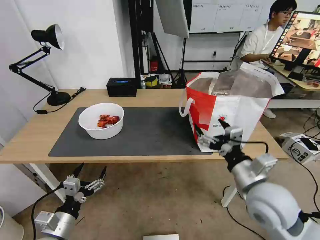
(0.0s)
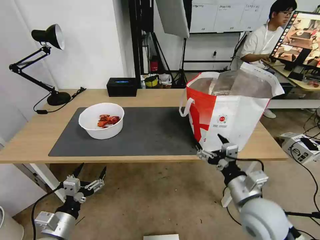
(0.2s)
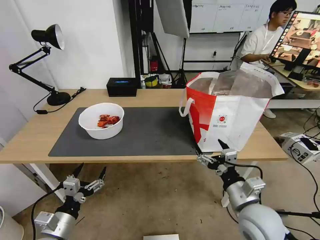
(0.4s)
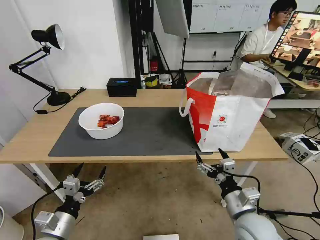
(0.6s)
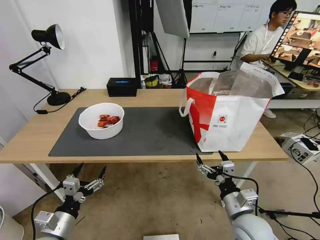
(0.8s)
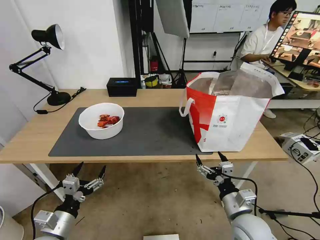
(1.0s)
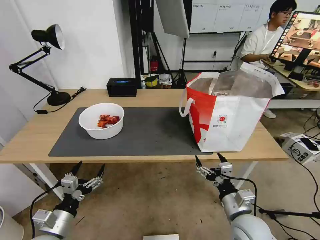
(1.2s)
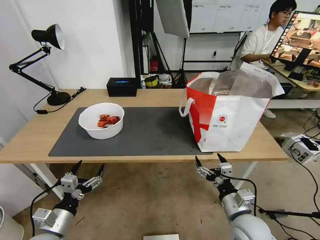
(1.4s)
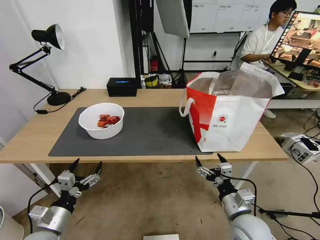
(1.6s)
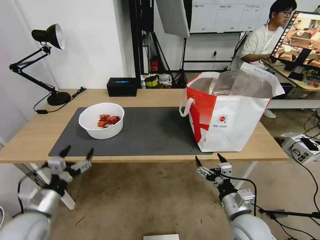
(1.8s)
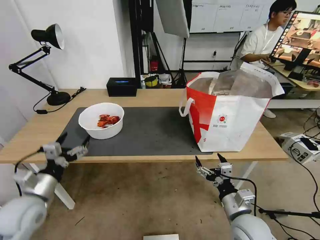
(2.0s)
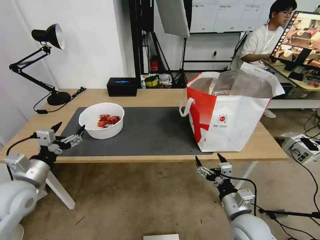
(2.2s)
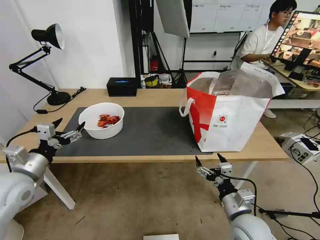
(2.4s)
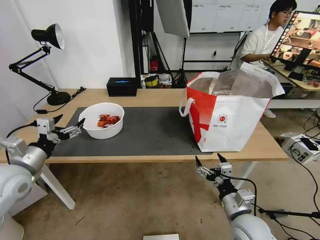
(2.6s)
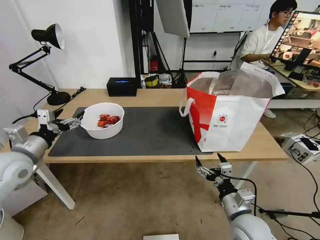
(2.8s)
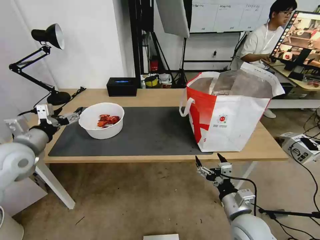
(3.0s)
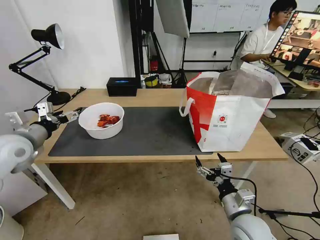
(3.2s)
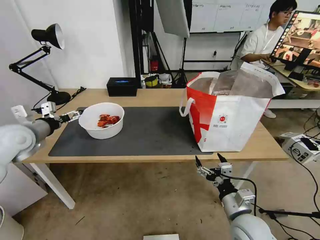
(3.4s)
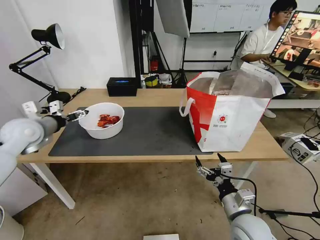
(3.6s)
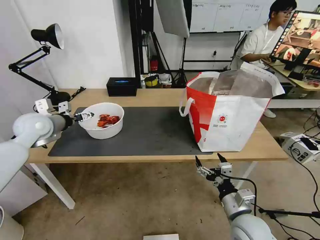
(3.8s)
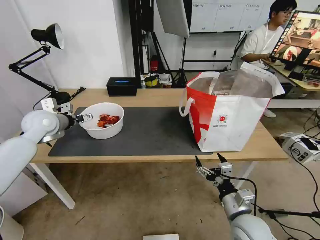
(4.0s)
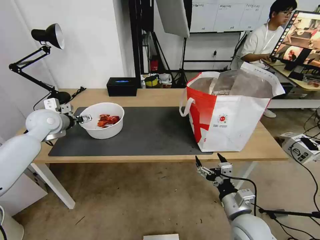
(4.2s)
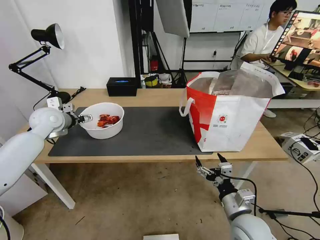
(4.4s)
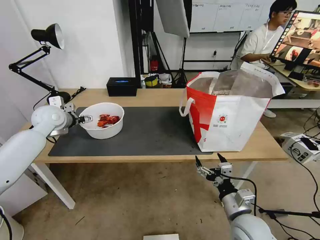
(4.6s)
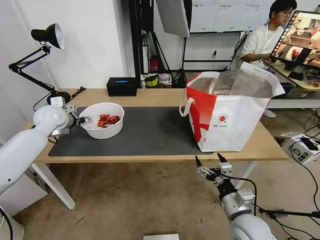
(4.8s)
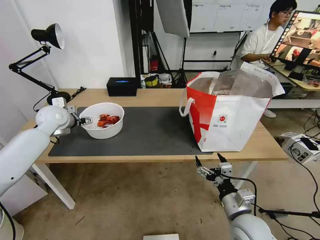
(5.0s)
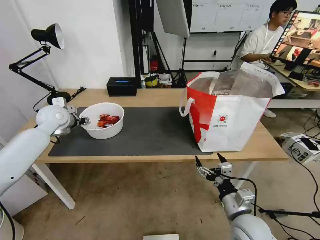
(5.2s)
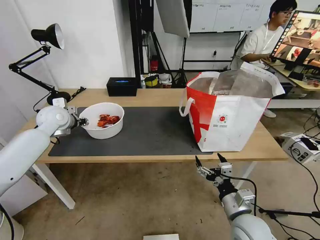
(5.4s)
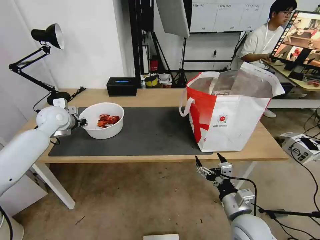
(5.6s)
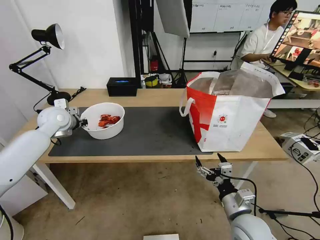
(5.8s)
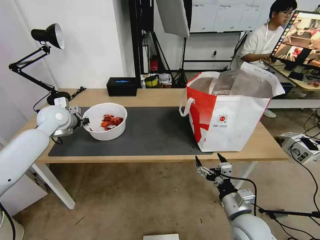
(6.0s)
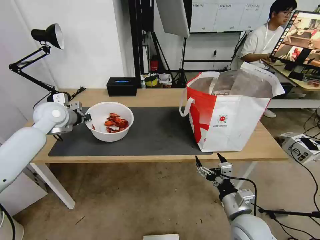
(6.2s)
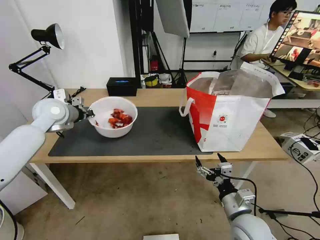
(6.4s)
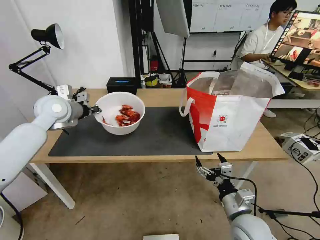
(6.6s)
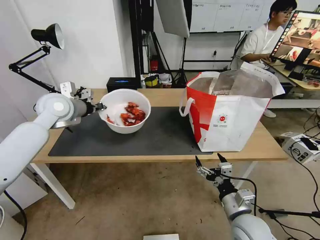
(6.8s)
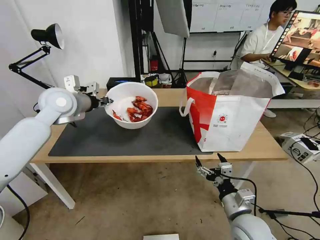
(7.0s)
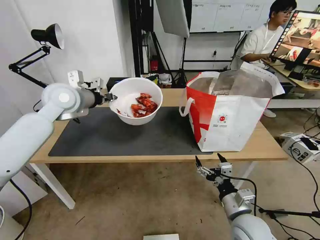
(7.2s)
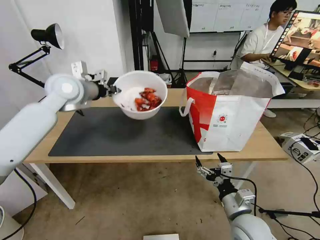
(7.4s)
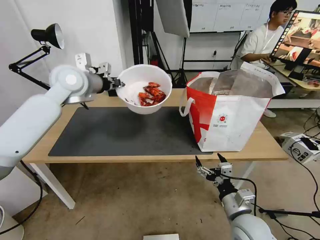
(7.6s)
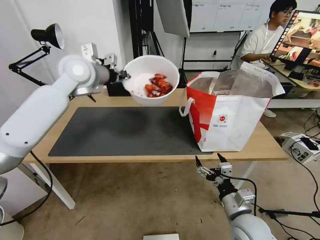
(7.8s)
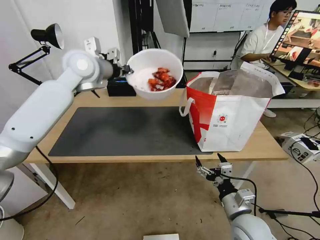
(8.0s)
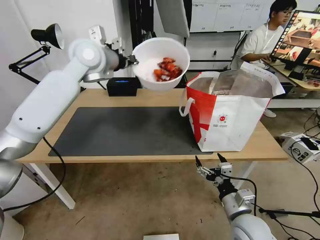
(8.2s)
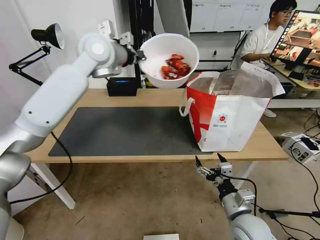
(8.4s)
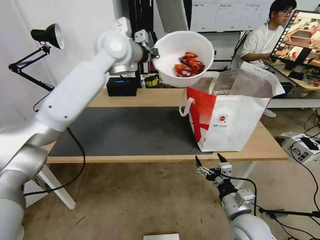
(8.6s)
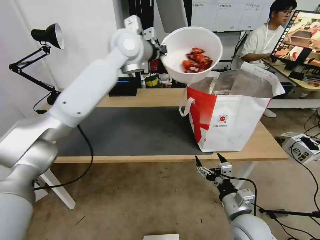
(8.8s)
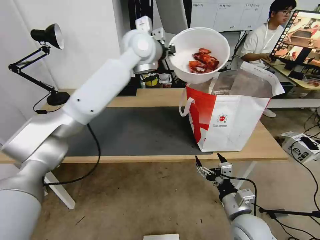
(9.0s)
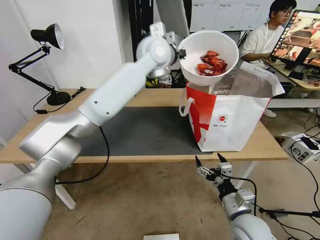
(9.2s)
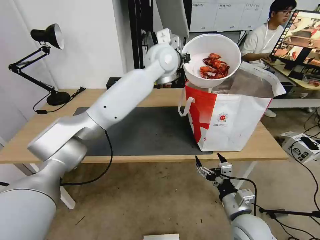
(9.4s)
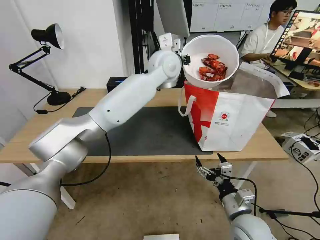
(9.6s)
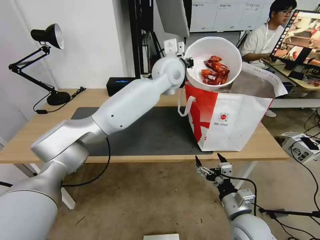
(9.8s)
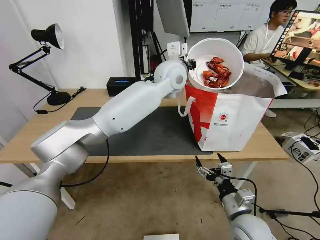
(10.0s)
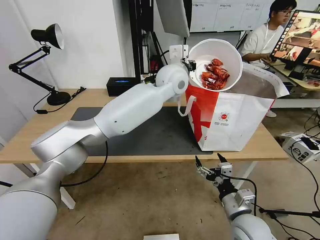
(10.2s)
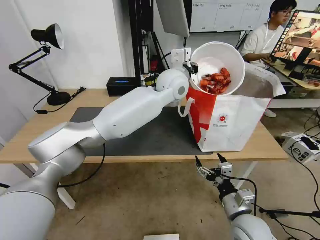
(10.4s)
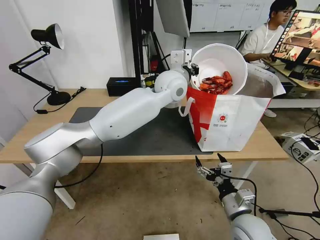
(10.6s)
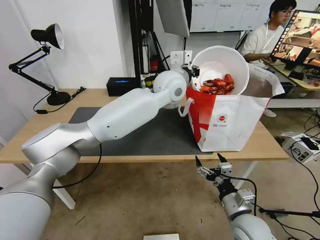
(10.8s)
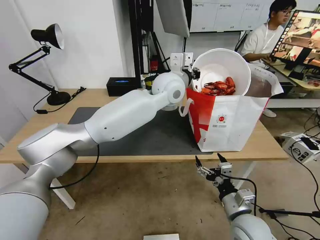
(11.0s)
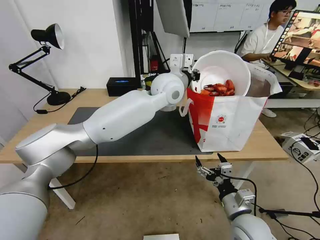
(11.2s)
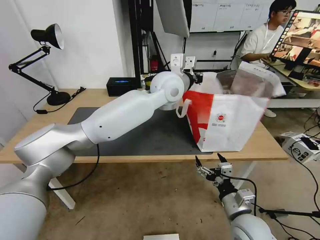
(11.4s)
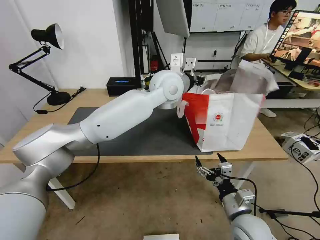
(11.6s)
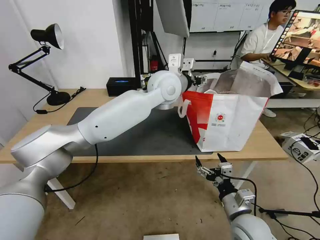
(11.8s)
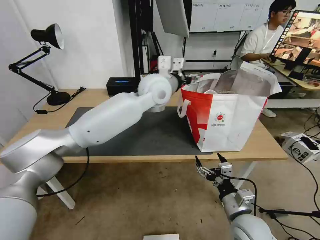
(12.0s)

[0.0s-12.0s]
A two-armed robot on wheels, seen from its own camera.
Task of the whole recording: Pick up the trash from the table and place it into the takeout bag.
0.0s to 1.6s: The right gripper shifts some 10 cm downward.
1.6s to 3.0s: The left gripper travels forward, upward and to the left by about 25 cm.
3.0s to 4.4s: The left gripper goes approximately 15 cm forward.
4.4s to 6.0s: The left gripper closes its fingers.
6.0s to 7.6s: The left gripper travels upward and to the right by roughly 20 cm.
7.6s to 9.0s: The left gripper is displaced to the right by some 20 cm.
9.0s to 10.4s: The left gripper is displaced downward and to the right by some 15 cm.
10.4s to 12.0s: The left gripper shifts roughly 5 cm to the left, and opens its fingers.

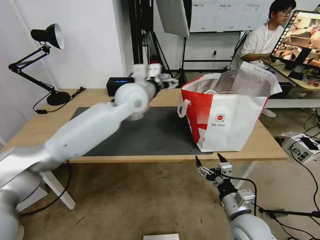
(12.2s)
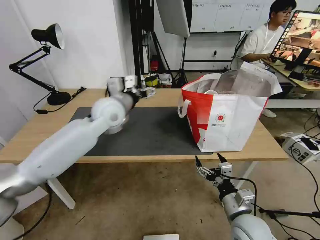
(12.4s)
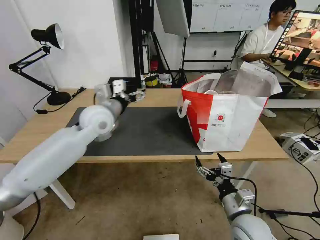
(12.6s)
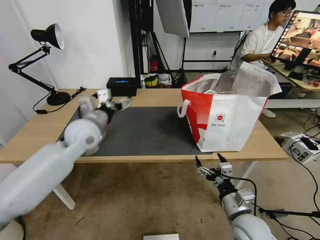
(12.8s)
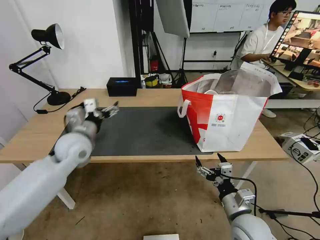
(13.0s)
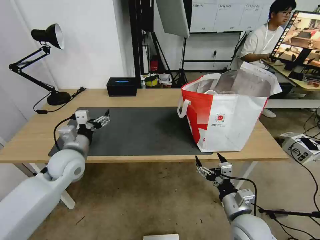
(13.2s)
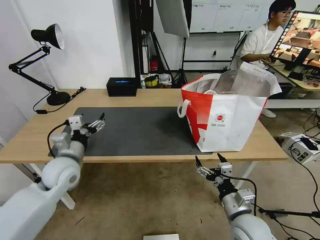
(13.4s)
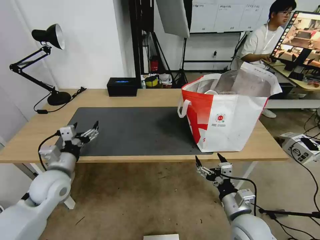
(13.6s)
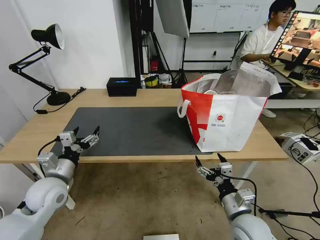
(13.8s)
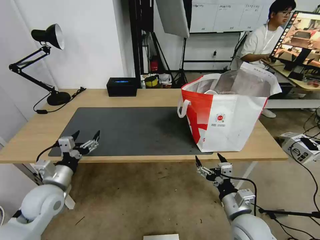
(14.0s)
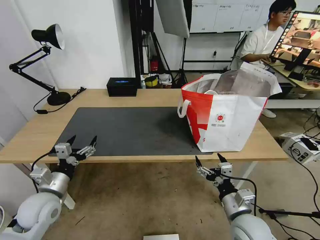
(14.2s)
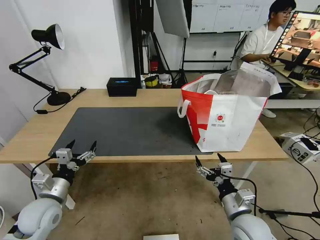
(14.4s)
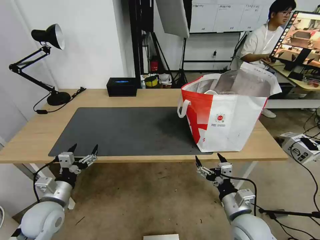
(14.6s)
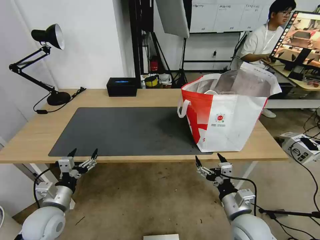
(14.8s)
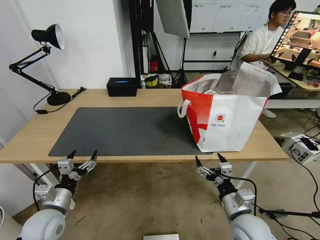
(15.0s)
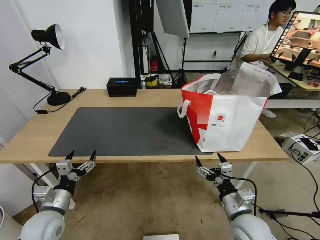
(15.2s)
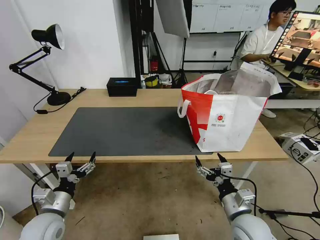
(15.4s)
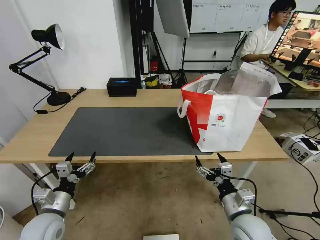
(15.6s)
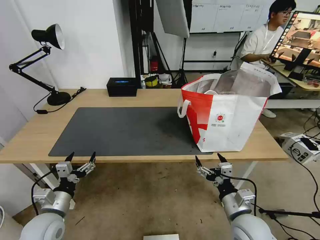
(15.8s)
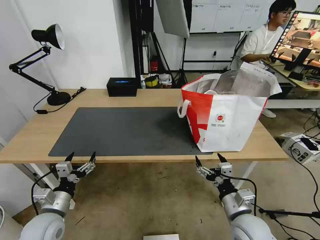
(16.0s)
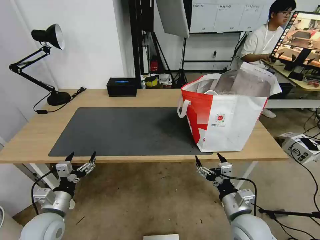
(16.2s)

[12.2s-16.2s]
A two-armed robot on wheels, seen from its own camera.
Task of the whole recording: Pick up the trash from the table and place it into the takeout bag.
12.2s to 13.6s: The left gripper moves to the left, backward and downward, roughly 35 cm.
13.6s to 14.8s: The left gripper travels downward and backward by some 10 cm.
14.8s to 16.2s: The grippers make only small movements.

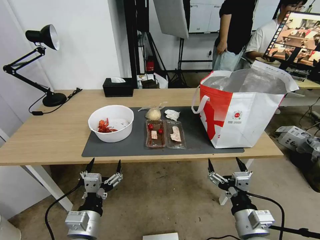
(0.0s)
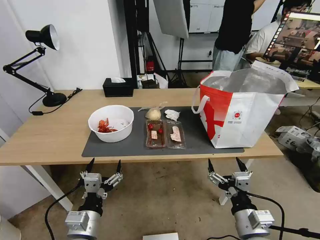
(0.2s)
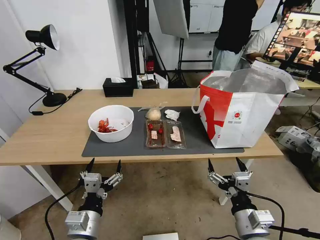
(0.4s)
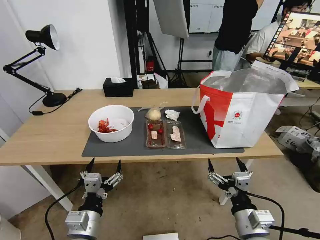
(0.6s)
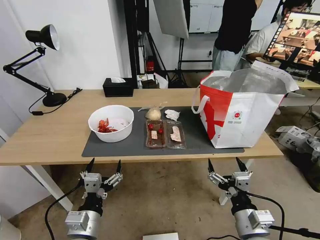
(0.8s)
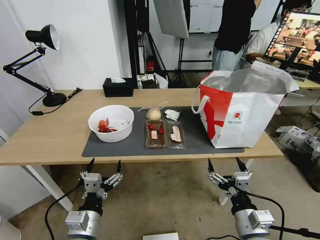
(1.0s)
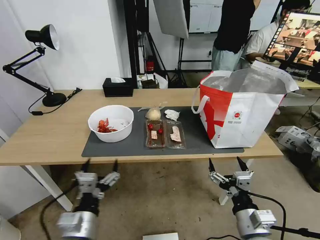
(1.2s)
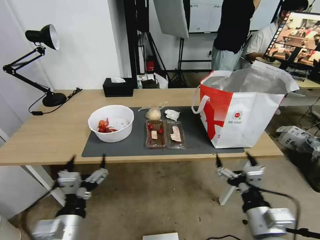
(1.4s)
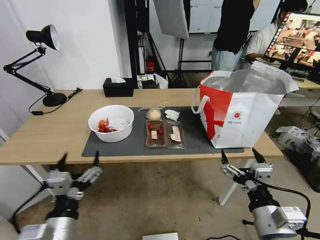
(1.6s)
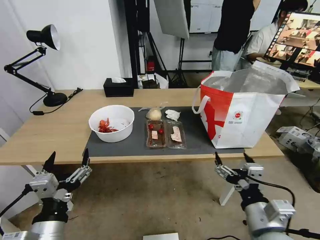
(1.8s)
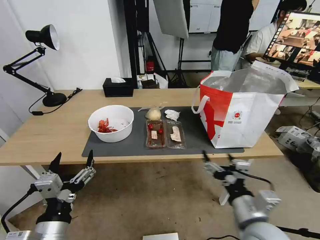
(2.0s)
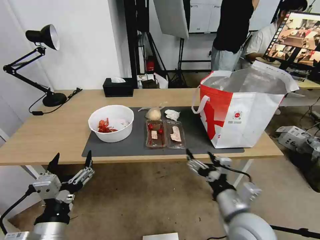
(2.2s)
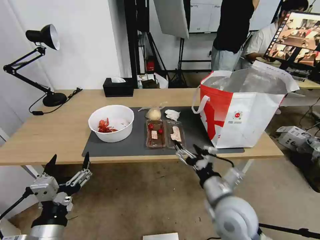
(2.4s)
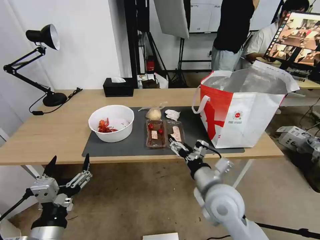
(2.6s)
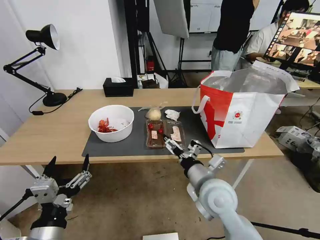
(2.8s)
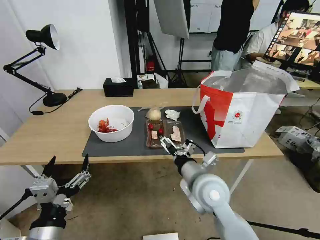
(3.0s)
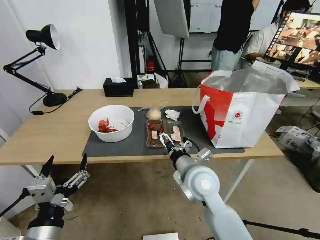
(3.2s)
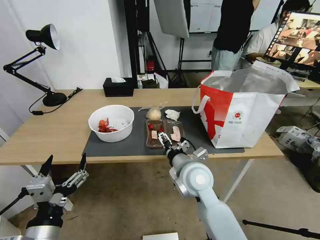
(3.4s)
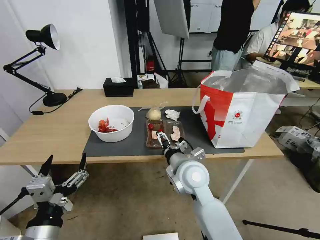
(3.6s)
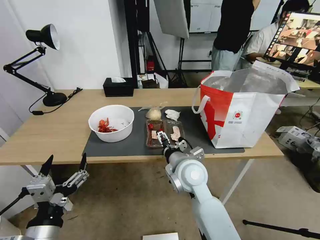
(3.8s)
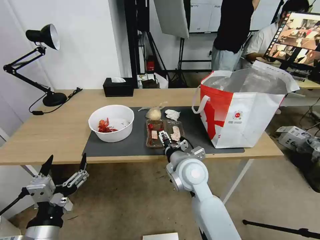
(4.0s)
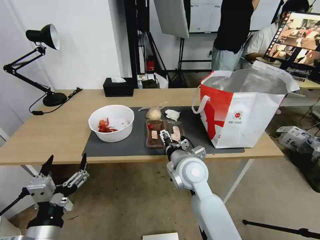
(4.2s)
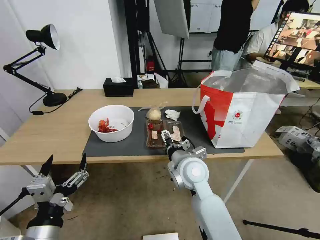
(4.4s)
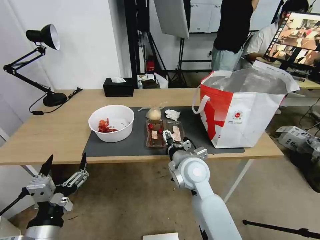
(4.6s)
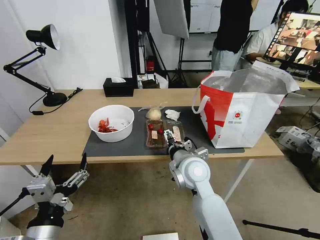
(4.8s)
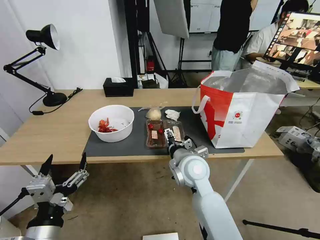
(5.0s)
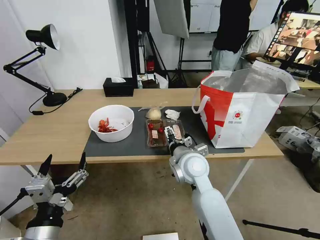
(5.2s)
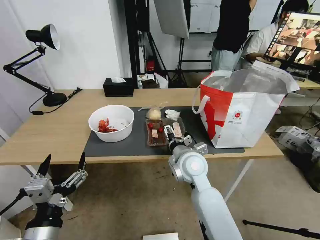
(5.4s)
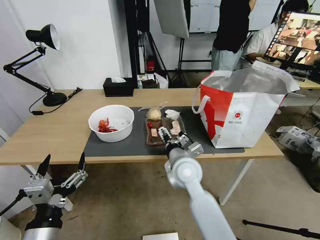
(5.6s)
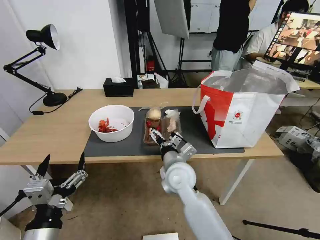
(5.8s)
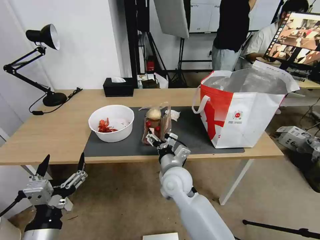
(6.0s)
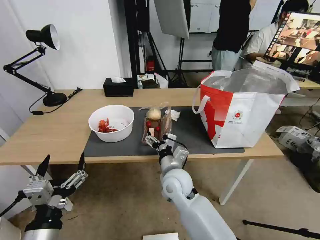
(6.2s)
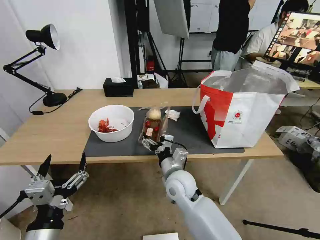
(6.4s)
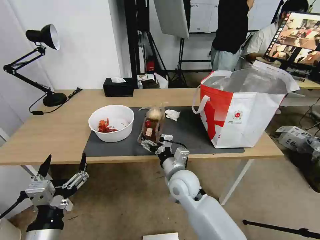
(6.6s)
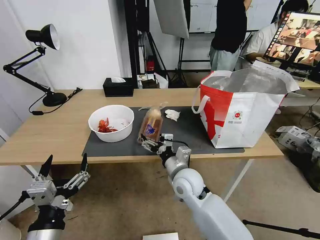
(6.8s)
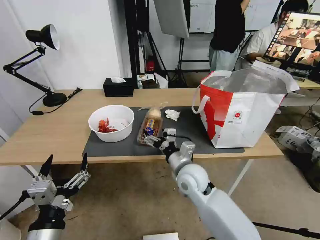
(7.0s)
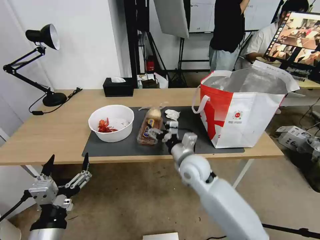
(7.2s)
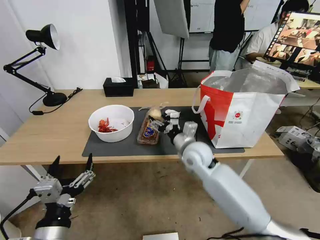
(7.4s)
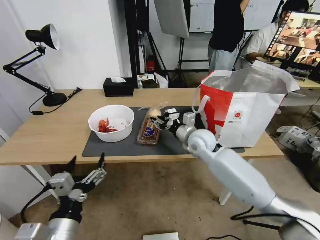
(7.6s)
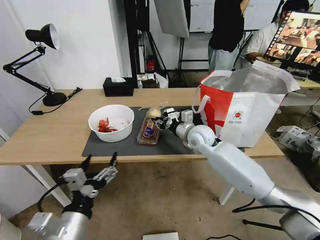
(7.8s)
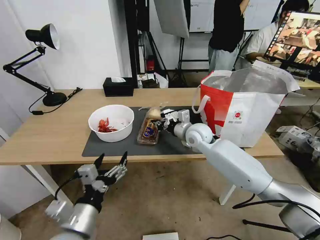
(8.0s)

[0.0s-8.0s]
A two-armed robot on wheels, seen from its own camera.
Task of the whole recording: Pick up the trash from the table and place it into the takeout bag.
1.6s to 3.2s: The right gripper shifts about 20 cm forward and to the left.
3.2s to 4.8s: There are only small adjustments of the grippers.
4.8s to 6.4s: The right gripper shifts about 5 cm downward.
6.4s to 8.0s: The left gripper is displaced forward by about 5 cm. The right gripper heads forward and to the right, covering about 20 cm, and closes up.
